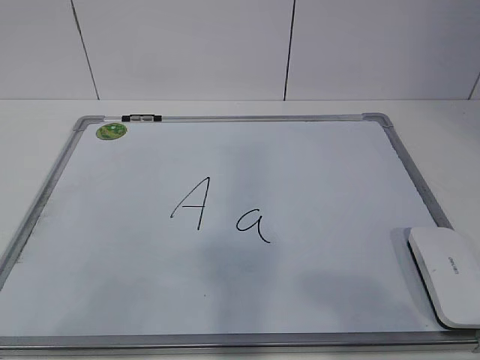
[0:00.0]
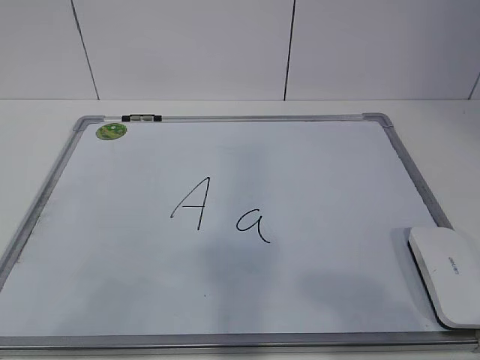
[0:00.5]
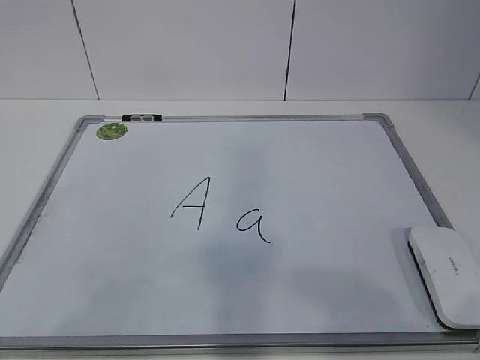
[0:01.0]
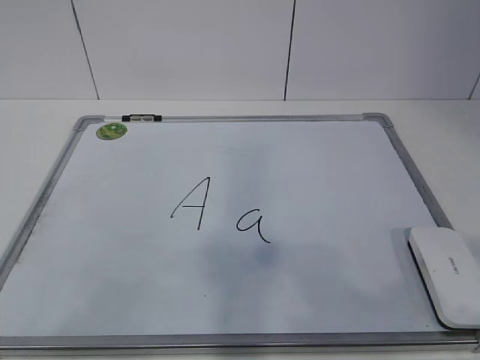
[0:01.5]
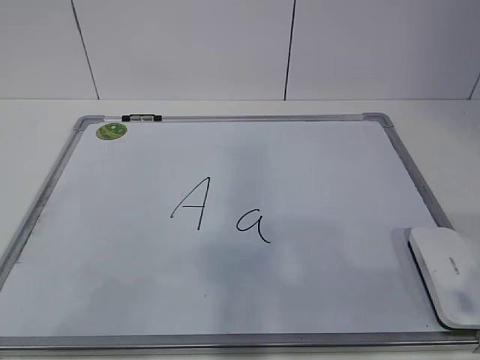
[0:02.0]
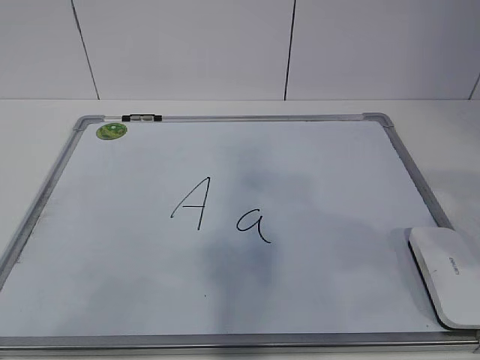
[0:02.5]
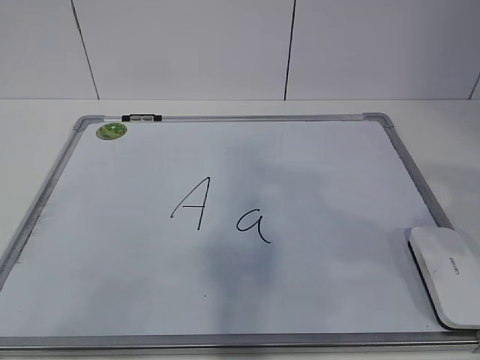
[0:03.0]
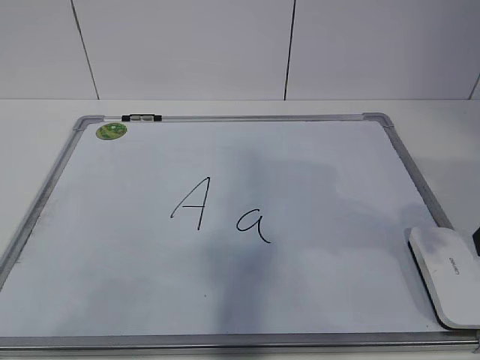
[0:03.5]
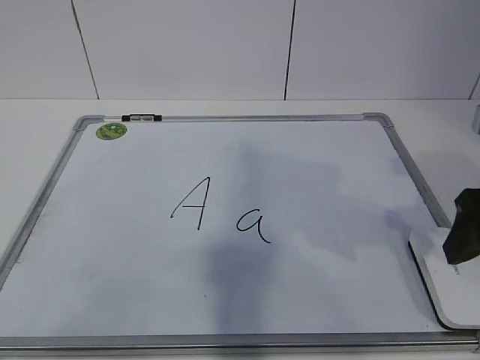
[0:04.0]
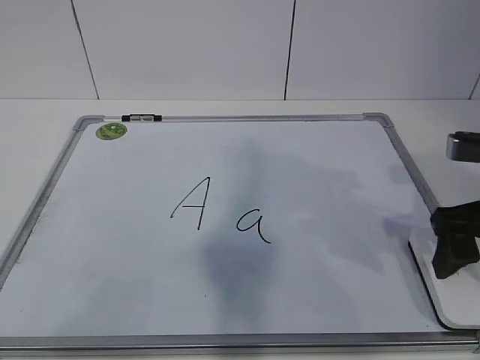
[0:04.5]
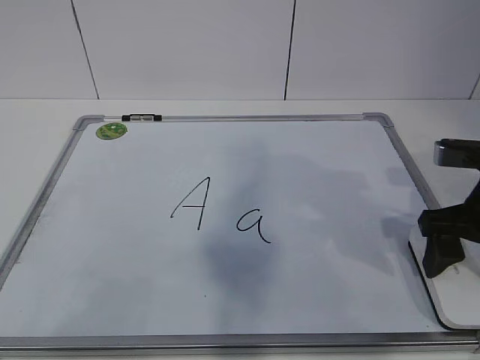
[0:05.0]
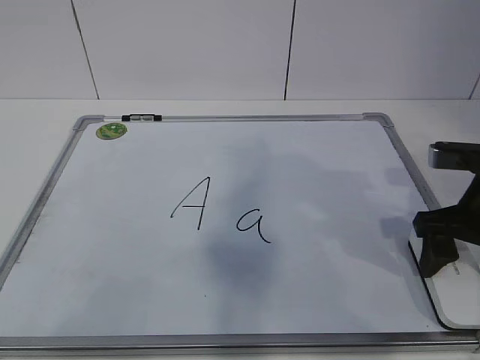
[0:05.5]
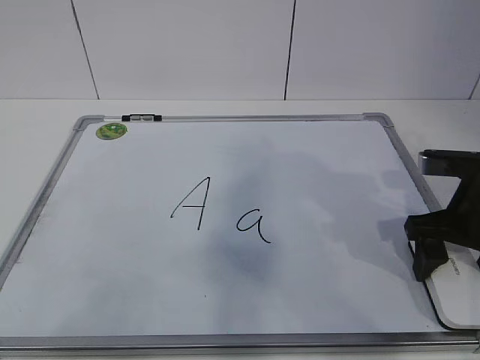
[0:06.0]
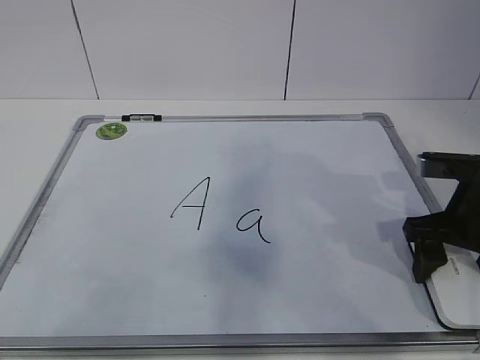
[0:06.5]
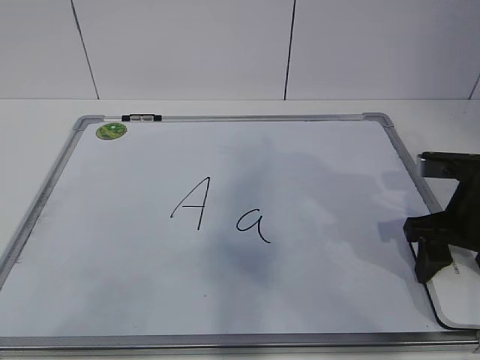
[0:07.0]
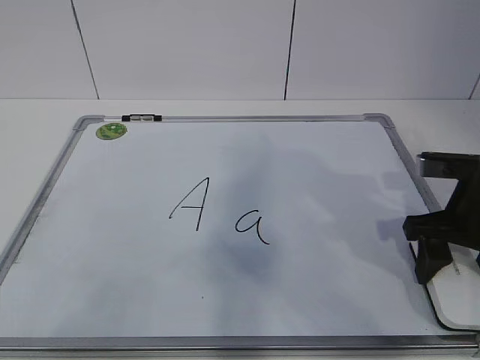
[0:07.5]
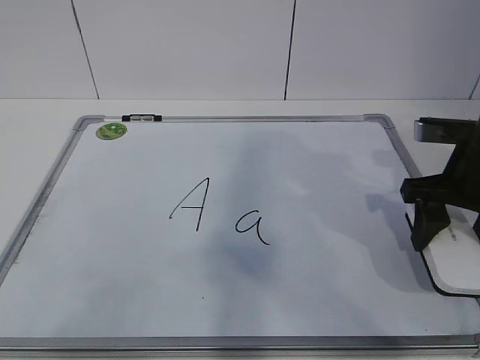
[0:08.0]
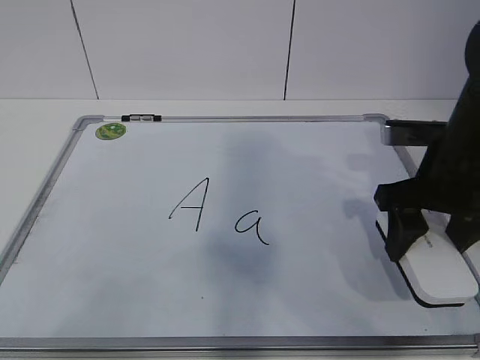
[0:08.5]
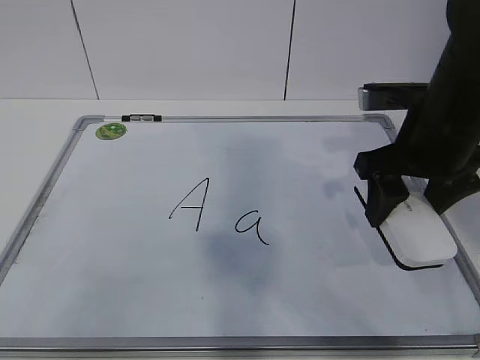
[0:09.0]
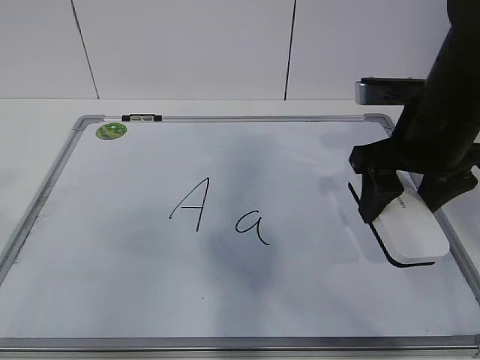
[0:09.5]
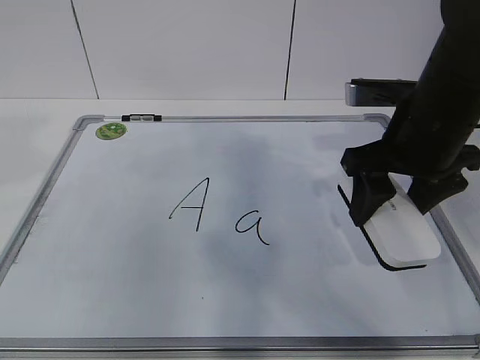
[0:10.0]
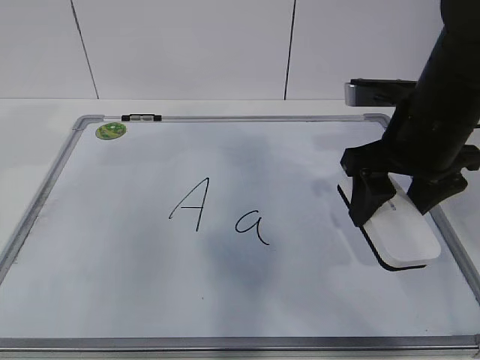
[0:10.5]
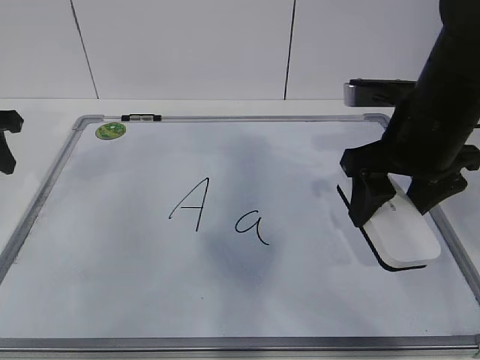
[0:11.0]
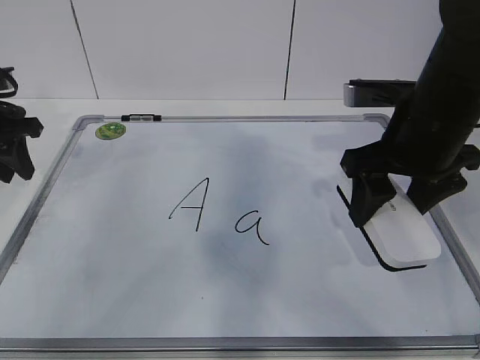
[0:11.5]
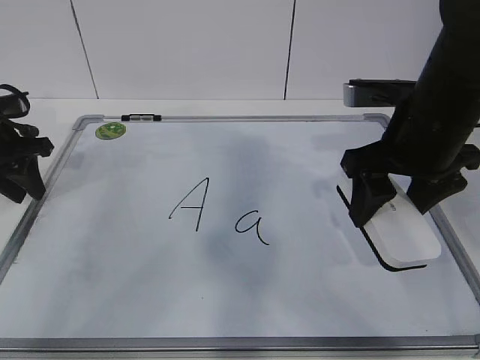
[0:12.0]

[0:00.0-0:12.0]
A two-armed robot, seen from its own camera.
Task of the whole recording: pick up the eraser on the blackboard and erase the letter "a".
Step, 0:00.0 to 0:06.0: Grab the eraser with your right hand.
Step, 0:06.5 to 0:10.5: Hold the drawing board steady with your left hand.
0:02.0 to 0:04.0: The right gripper is displaced forward by about 15 cm, and opens up.
0:04.0 to 0:06.0: The right gripper goes approximately 10 cm downward and forward.
0:06.0 to 0:08.0: The right gripper closes its fingers.
0:08.0 to 0:10.0: The right gripper is displaced to the left by some 5 cm.
0:10.0 to 0:12.0: The left gripper shifts approximately 25 cm forward and downward.

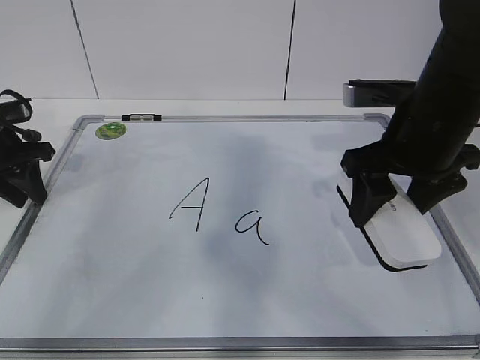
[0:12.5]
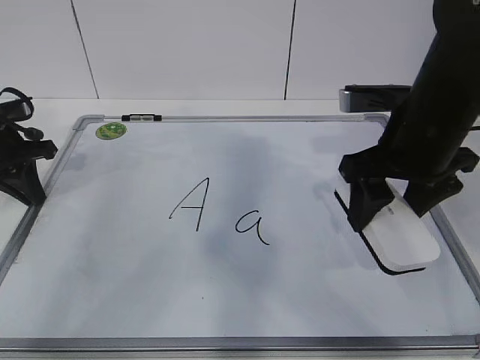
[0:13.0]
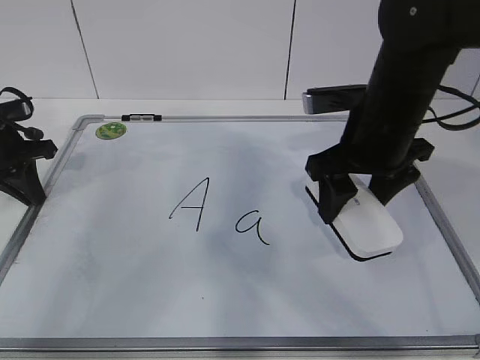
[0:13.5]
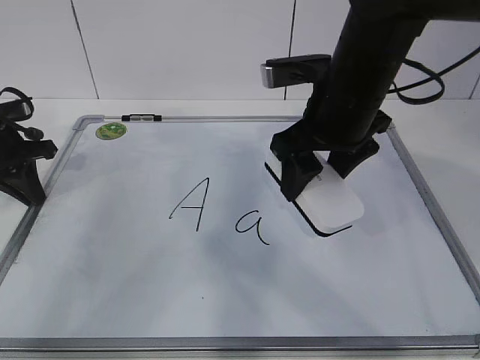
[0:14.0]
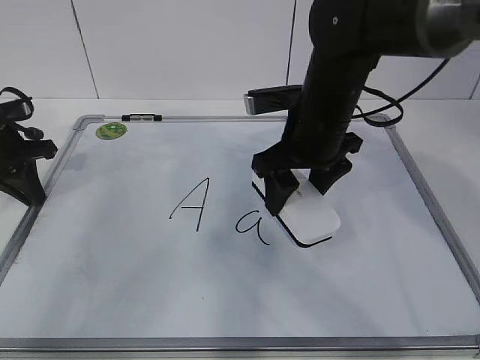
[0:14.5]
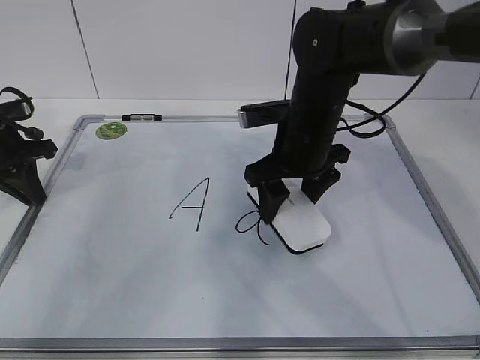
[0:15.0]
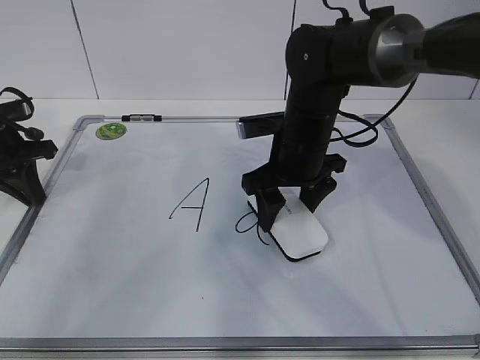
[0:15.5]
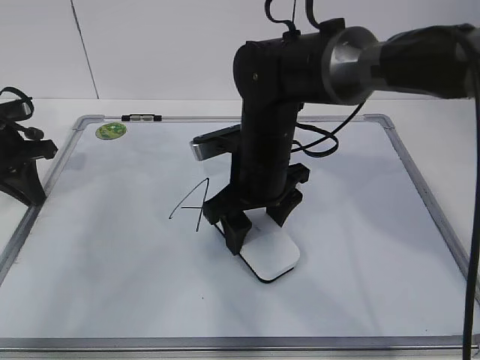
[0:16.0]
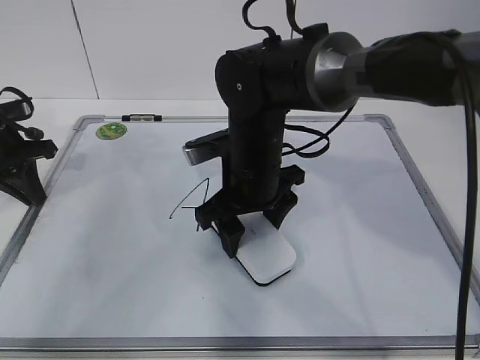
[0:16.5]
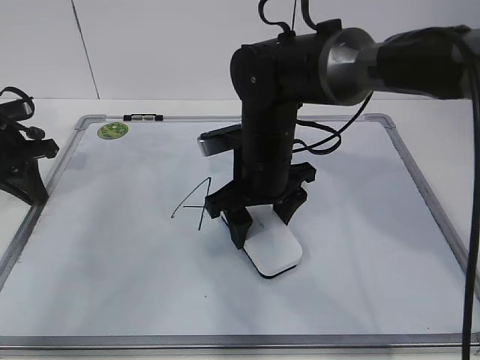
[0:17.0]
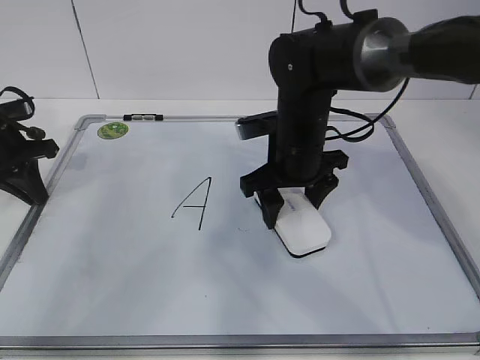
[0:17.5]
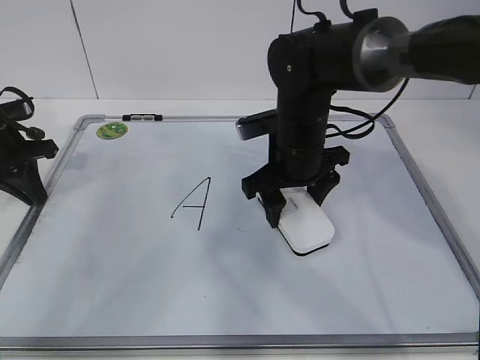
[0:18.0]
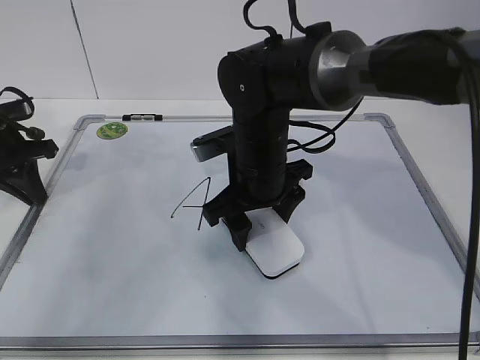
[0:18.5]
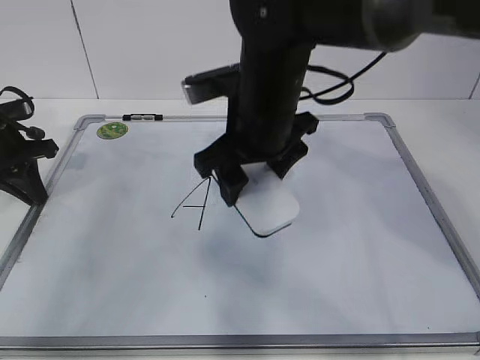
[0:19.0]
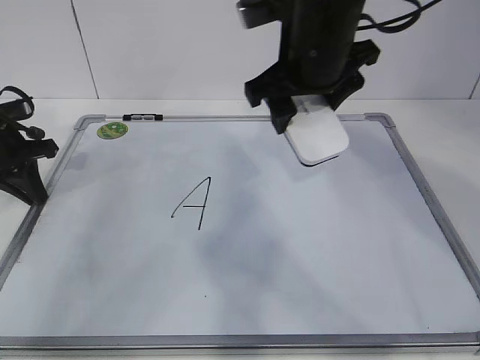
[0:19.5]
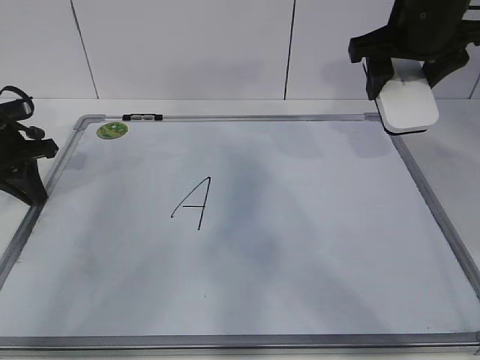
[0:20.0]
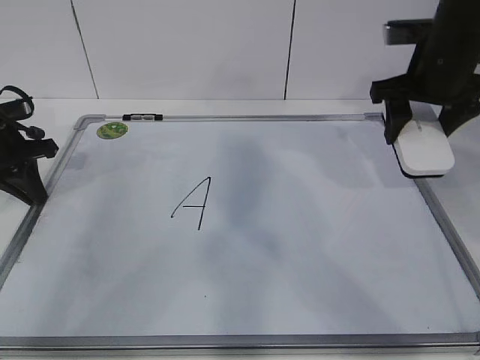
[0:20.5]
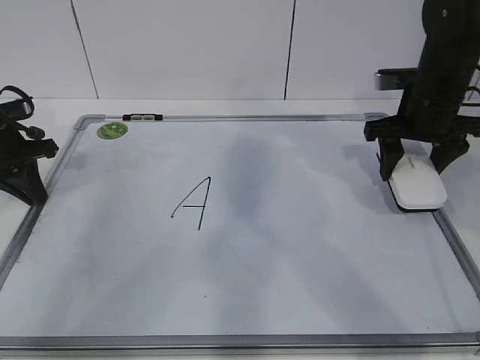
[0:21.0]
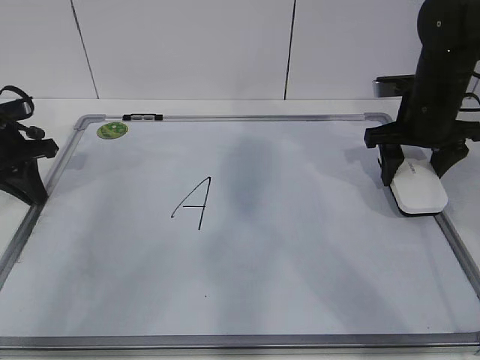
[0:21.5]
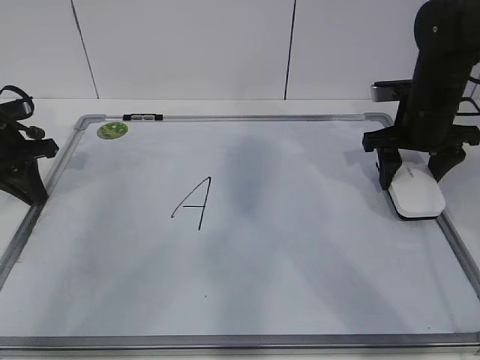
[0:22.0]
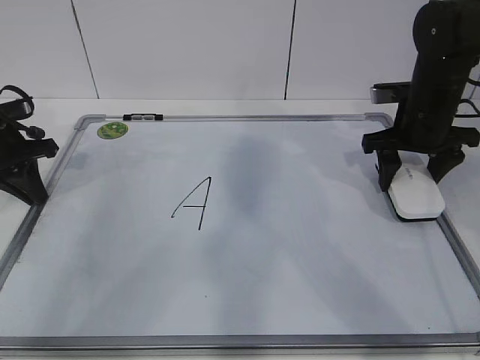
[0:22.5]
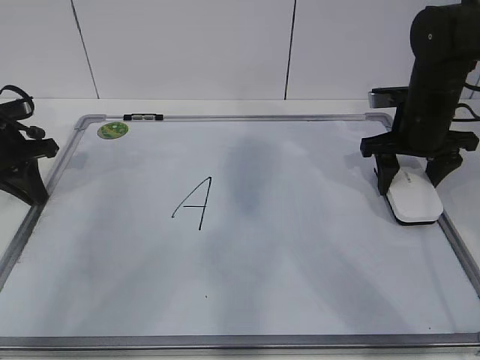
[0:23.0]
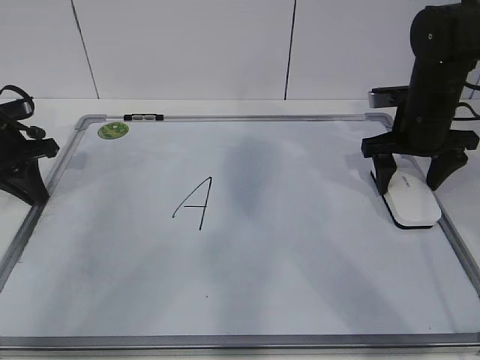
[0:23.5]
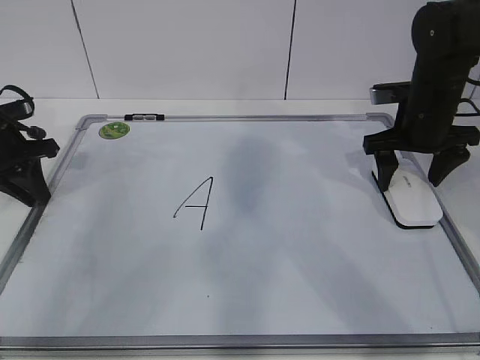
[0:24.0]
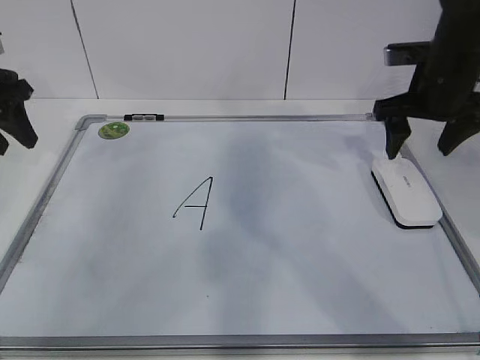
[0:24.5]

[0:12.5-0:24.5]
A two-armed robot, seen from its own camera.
Task of the whole recording: pick up the eraser on the blackboard and erase the letter "a".
Step, 0:12.5 to 0:15.0: Erase the letter a with your right hand.
Step, 0:15.5 to 0:19.0: Put down the eraser with your right hand.
0:12.5 to 0:14.5: The left gripper closes up. The right gripper travels to the left and forward by some 10 cm.
0:14.5 to 0:16.5: The right gripper goes about 5 cm to the left.
0:18.5 to 0:20.5: The right gripper moves to the right and upward, some 25 cm.
0:20.5 to 0:22.5: The right gripper travels downward by approximately 5 cm.
0:22.5 to 0:24.5: The right gripper heads upward, covering approximately 5 cm, and opens, while the left gripper moves upward, about 10 cm, and opens.

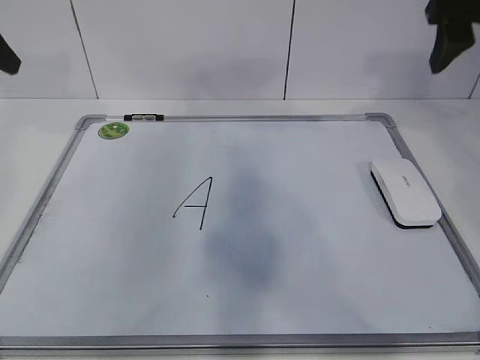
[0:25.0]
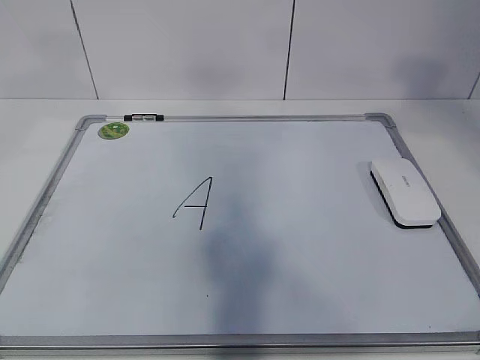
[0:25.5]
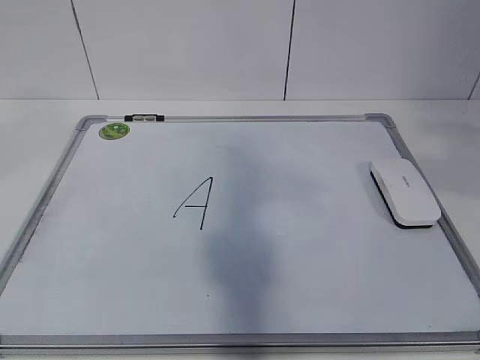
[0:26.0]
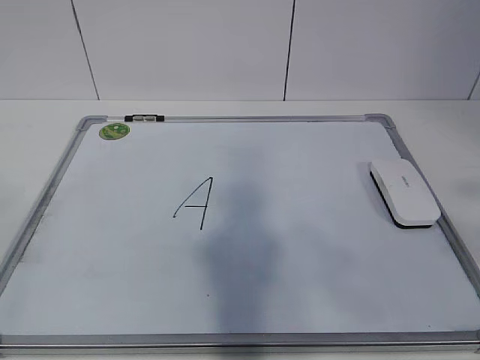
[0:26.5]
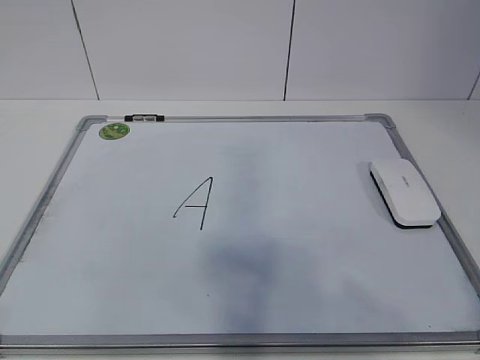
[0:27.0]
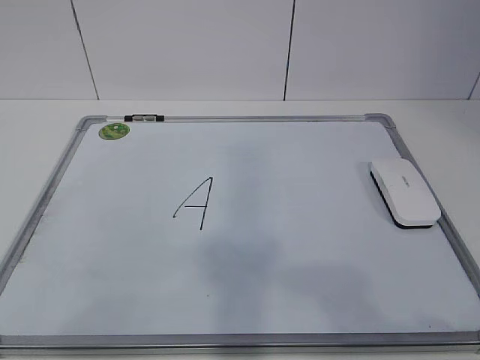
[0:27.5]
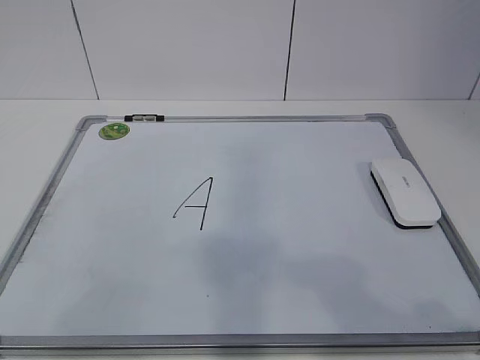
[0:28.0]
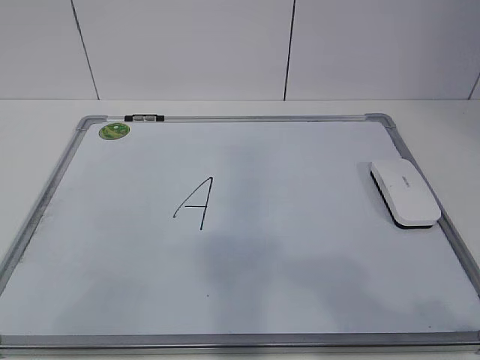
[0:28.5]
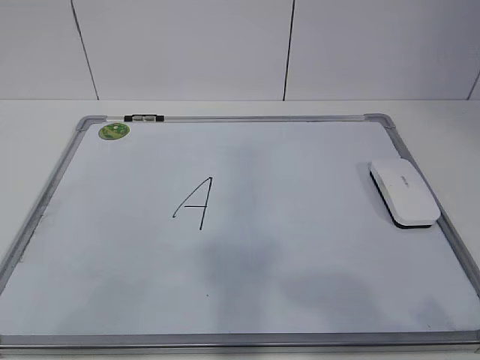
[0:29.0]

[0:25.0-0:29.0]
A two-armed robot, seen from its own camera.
Task of the whole recording: pick up the eraser on the blackboard and erase the letter "a".
0:25.0 to 0:27.0: The two grippers go roughly 40 cm backward.
0:27.0 to 0:29.0: The grippers both shift downward by about 5 cm.
